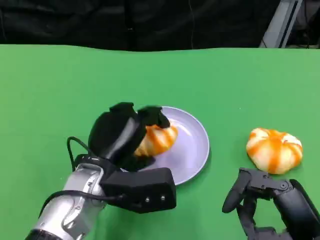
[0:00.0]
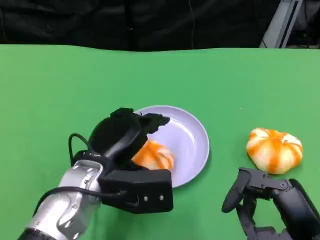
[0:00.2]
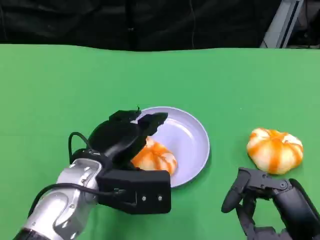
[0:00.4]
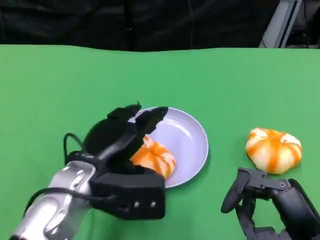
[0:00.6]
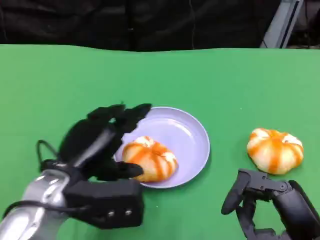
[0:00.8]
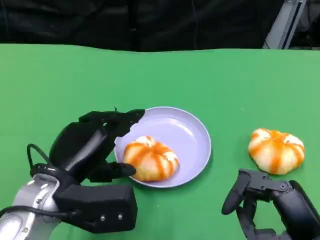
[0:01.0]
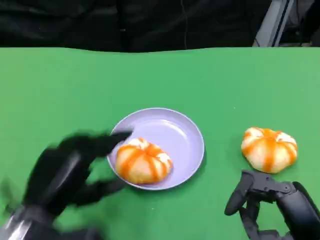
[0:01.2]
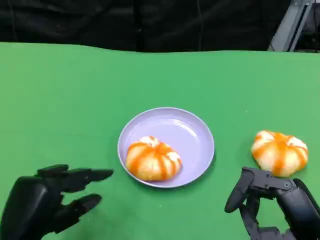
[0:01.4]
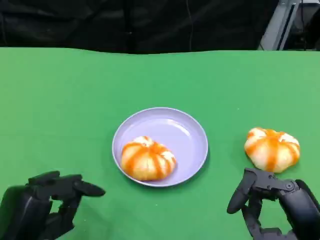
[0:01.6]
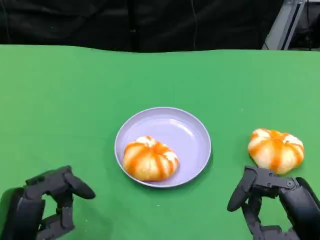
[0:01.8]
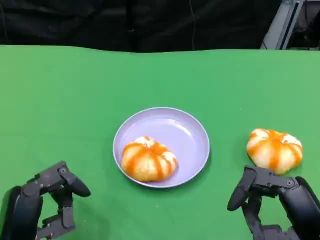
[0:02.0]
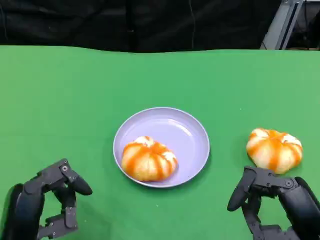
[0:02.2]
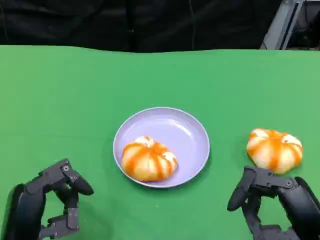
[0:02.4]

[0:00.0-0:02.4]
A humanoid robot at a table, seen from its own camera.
Task of the whole recording: Grasp the bread from the table and place it into the plate.
0:00.0 to 0:01.2: The left hand goes roughly 15 cm to the left and backward.

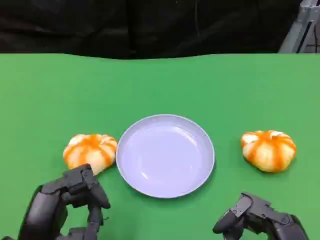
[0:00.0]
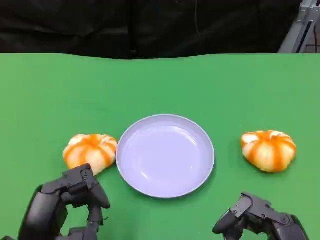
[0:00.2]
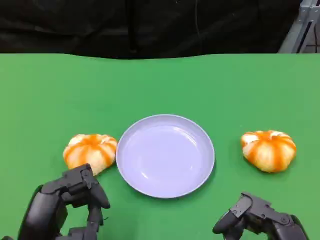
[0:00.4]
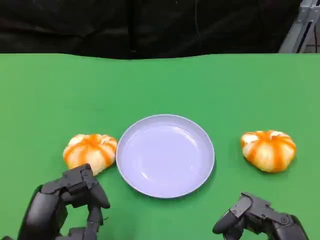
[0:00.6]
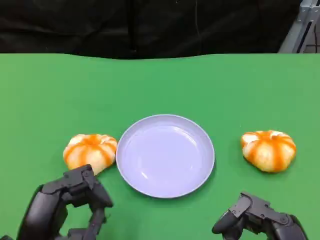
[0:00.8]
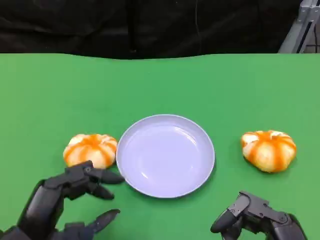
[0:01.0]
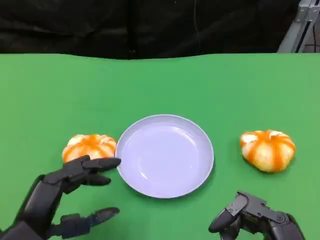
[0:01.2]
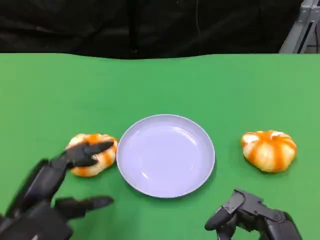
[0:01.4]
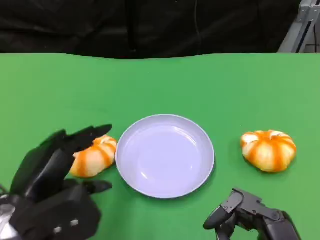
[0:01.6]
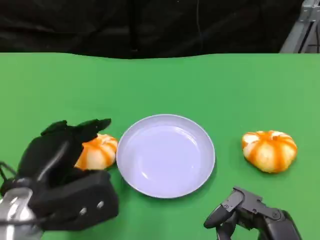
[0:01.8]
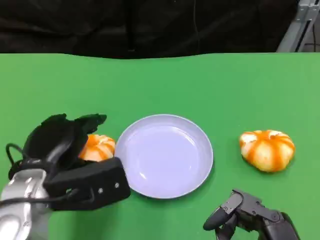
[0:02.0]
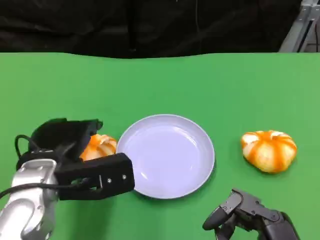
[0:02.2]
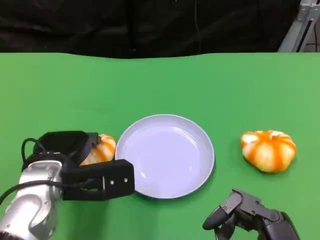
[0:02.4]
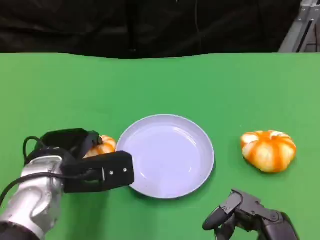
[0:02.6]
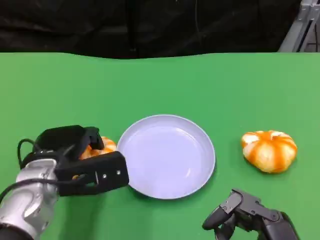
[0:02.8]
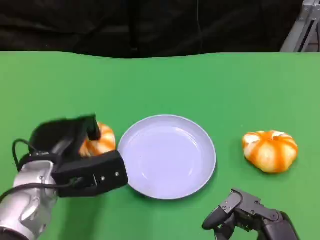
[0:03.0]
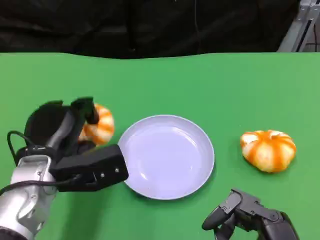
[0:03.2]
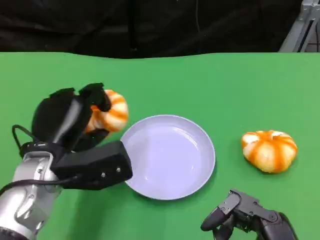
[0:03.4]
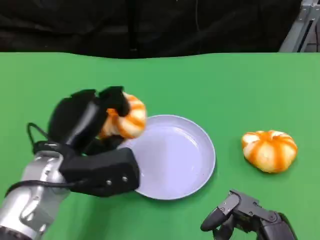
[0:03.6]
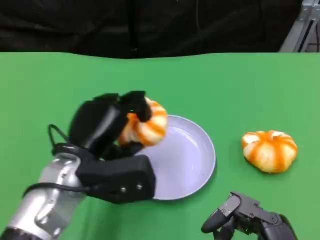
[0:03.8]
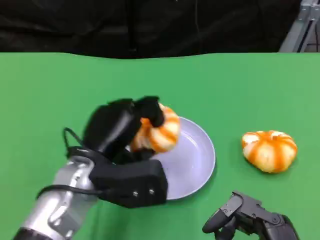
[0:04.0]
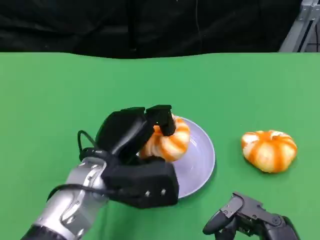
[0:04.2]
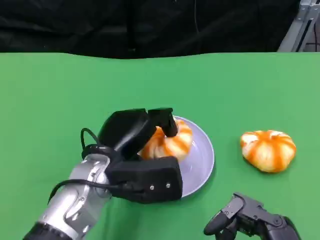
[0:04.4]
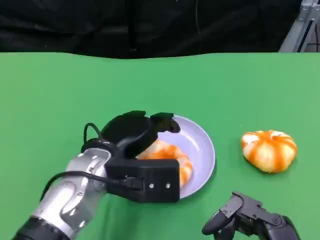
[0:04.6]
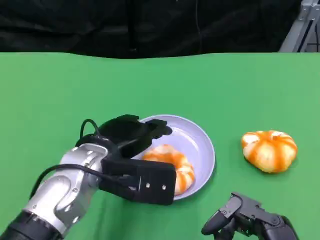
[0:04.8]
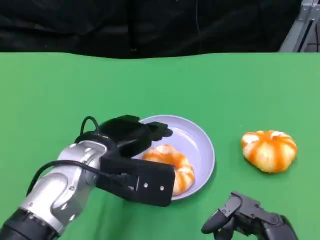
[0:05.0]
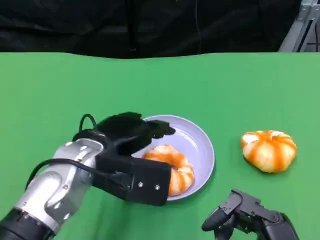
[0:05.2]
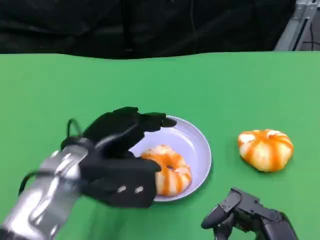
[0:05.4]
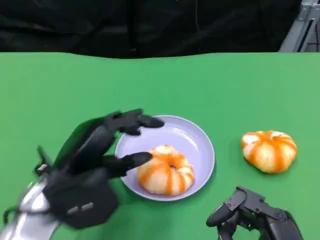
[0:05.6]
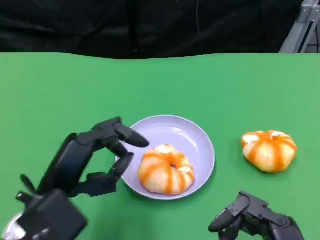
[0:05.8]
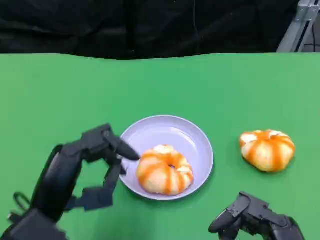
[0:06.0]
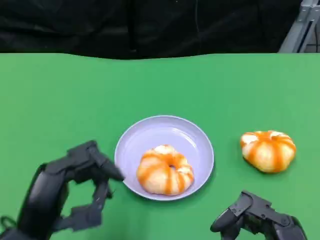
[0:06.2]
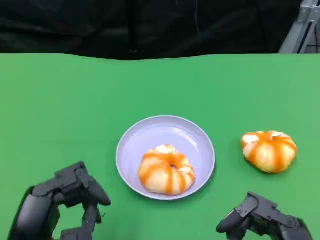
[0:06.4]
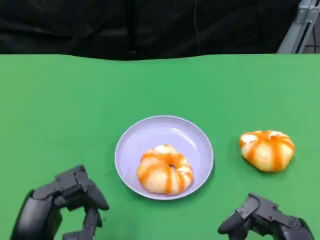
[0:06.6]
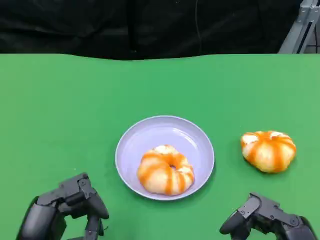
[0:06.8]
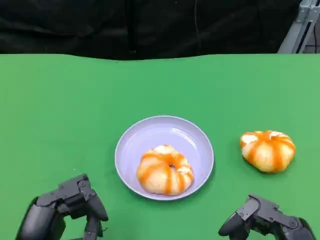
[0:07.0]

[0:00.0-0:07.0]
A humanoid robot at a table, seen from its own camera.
Task of the whole recording: Grasp the bread from the table and place it into the plate.
0:01.4 to 0:02.8: The left hand goes approximately 10 cm forward.
0:02.8 to 0:04.2: The left hand heads to the right, covering about 10 cm.
0:04.2 to 0:05.6: The left hand heads to the left, covering roughly 5 cm.
0:05.6 to 0:07.0: The left hand goes some 10 cm backward.

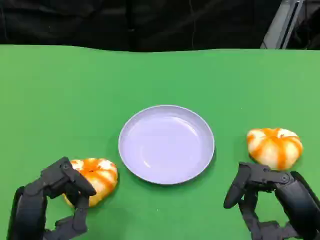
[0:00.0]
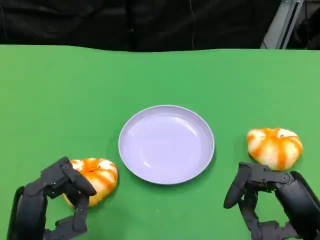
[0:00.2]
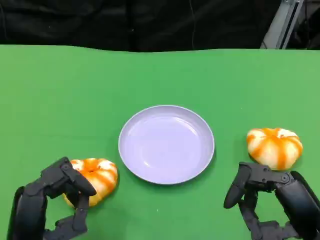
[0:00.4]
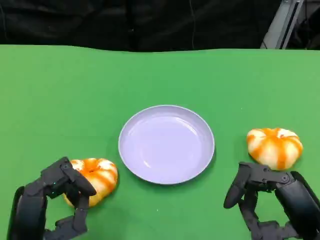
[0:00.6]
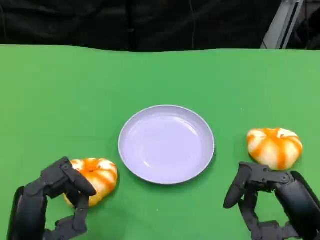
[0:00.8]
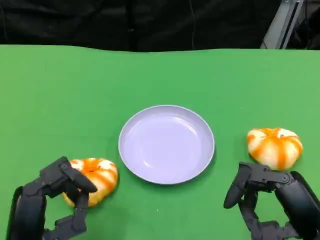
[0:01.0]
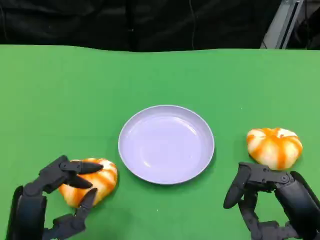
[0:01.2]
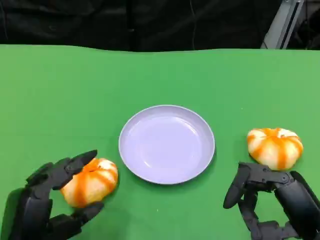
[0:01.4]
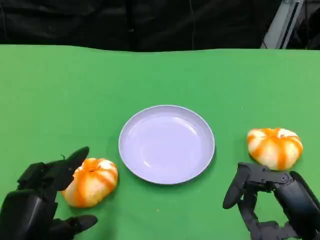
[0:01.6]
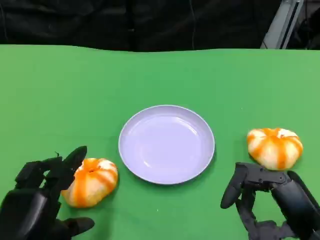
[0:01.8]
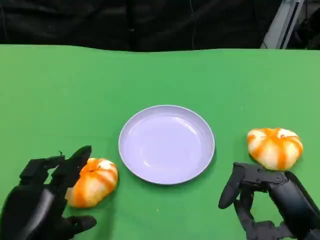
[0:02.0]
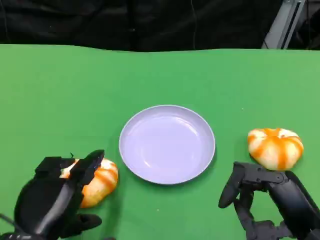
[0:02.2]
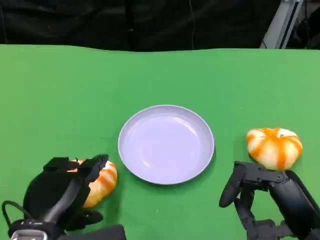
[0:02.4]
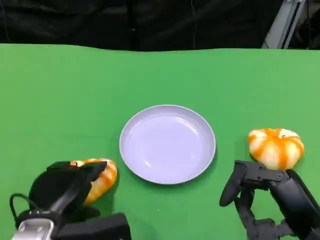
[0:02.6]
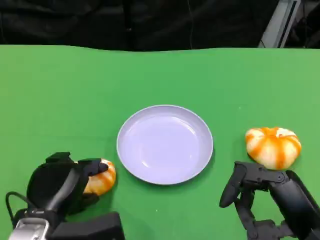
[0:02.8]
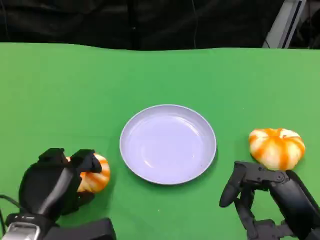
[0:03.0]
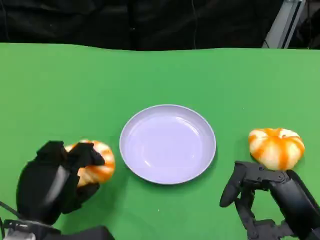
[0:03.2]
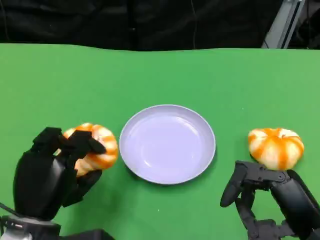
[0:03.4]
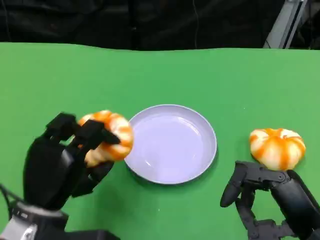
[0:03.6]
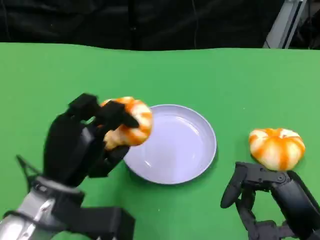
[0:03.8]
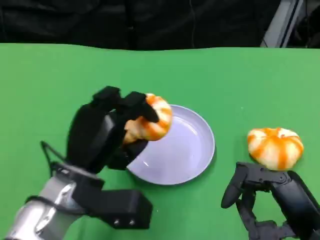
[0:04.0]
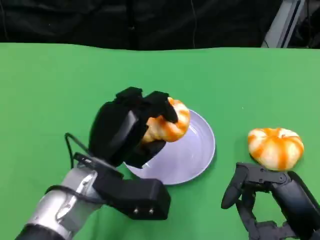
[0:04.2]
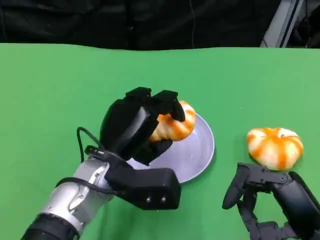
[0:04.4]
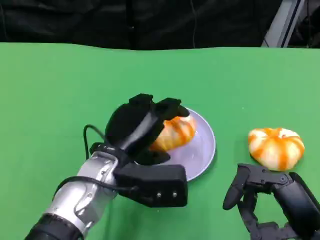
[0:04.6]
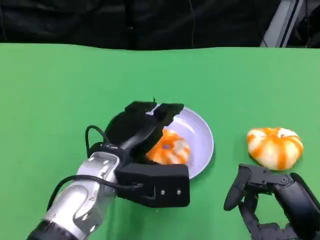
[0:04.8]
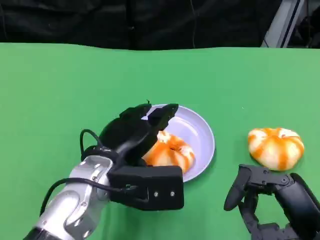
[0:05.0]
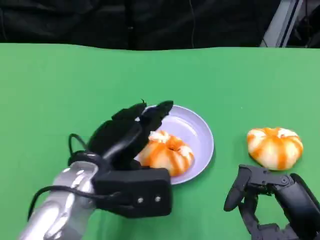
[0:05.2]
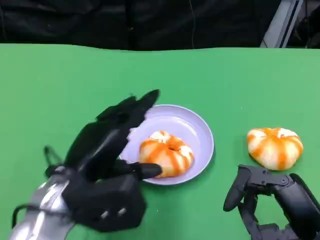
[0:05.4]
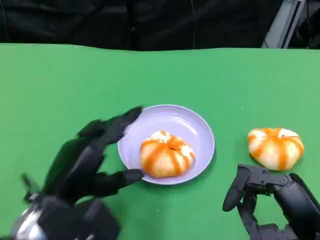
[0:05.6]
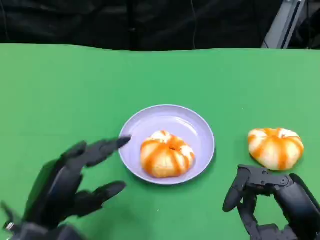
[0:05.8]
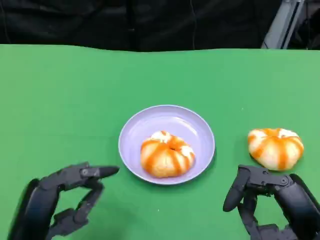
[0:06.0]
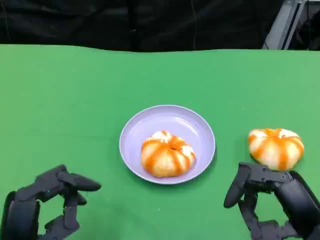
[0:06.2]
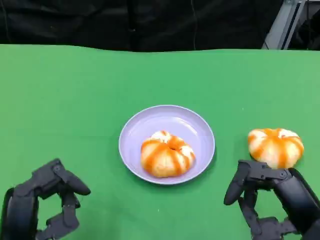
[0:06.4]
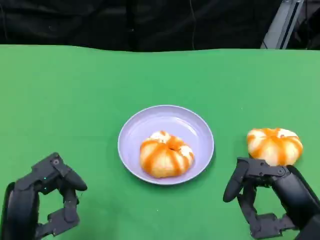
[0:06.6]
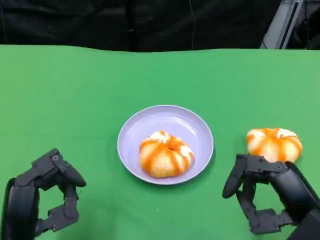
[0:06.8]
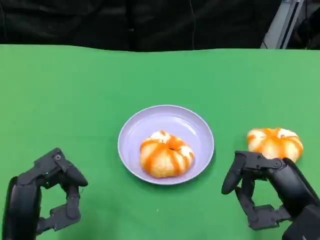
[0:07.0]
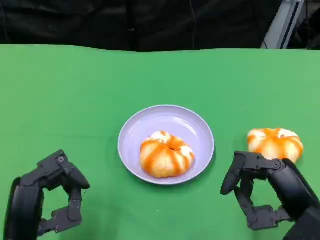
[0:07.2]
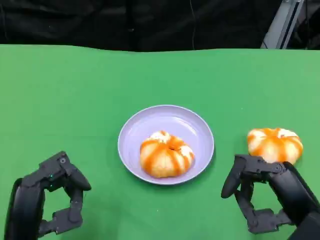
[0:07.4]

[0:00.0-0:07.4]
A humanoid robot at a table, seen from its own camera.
Task of the whole recording: Grasp the bread from the table and place it into the plate.
0:01.4 to 0:03.0: The left hand moves forward, about 5 cm.
0:03.0 to 0:04.4: The left hand moves to the right, forward and upward, about 15 cm.
0:04.4 to 0:06.0: The left hand moves backward and to the left, about 15 cm.
0:06.0 to 0:07.4: There are only small adjustments of the hands.

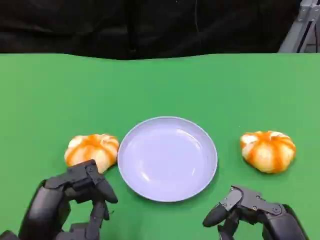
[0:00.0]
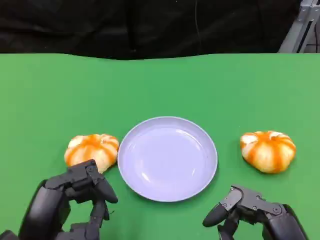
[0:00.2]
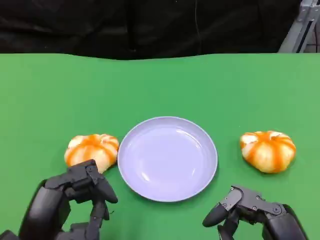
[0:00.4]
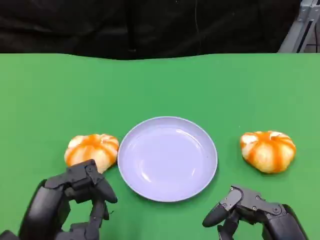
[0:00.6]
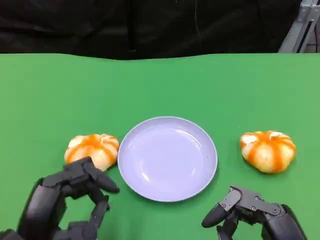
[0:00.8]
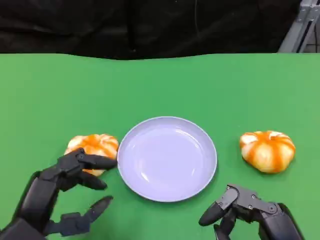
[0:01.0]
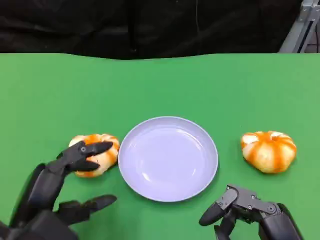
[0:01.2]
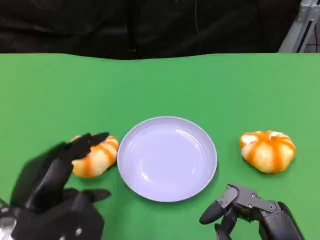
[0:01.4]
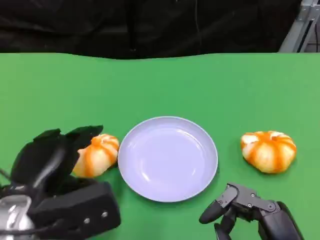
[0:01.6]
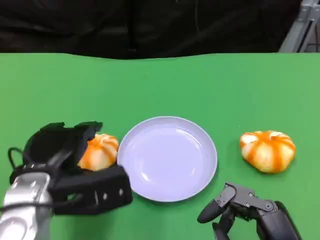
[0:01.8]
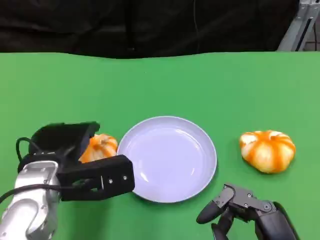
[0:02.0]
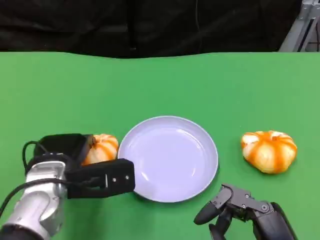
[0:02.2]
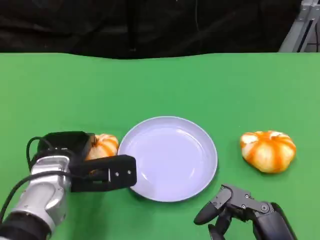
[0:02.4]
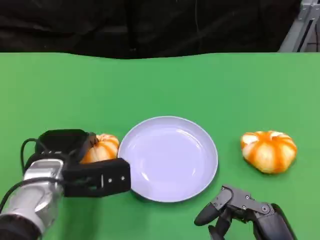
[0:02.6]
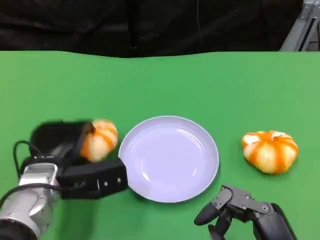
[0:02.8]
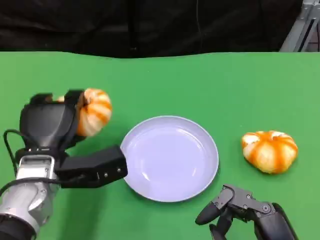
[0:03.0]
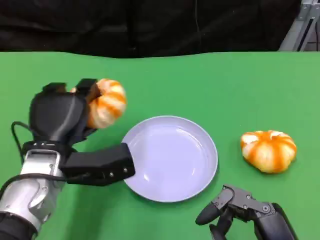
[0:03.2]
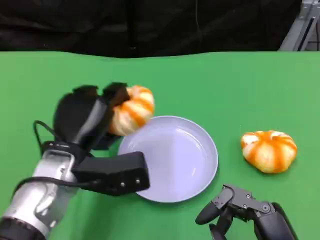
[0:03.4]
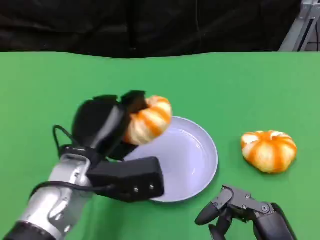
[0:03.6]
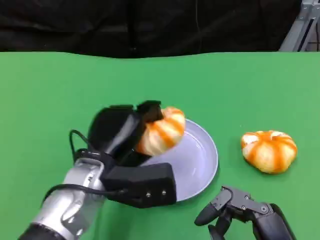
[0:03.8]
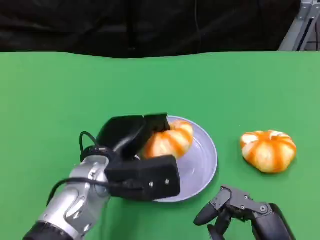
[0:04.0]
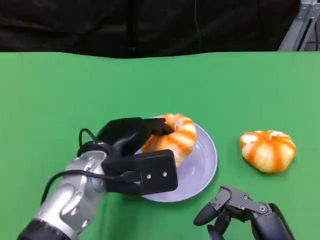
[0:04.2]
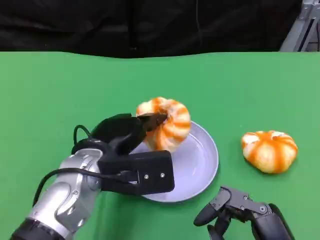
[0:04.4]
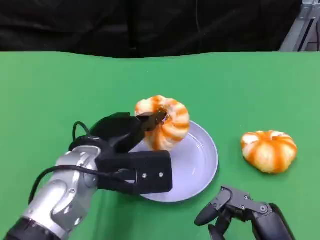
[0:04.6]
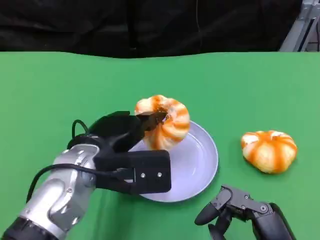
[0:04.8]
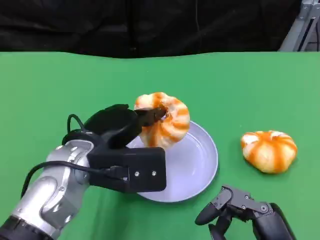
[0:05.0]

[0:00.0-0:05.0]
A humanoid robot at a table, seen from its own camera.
Task of the whole recording: Grasp the bread from the table and place it into the plate.
0:00.0 to 0:01.6: The left hand shifts approximately 5 cm forward.
0:01.6 to 0:03.4: The left hand goes some 10 cm forward and to the right.
